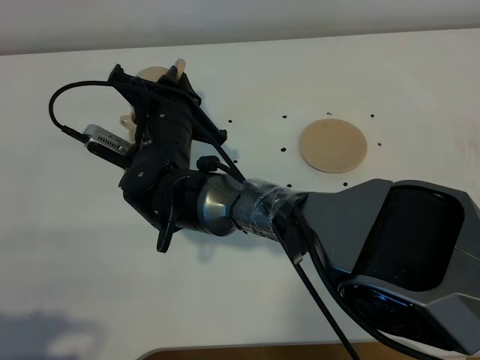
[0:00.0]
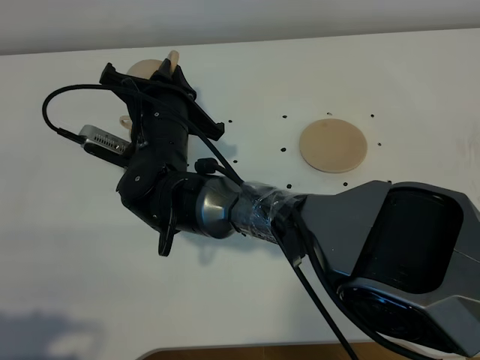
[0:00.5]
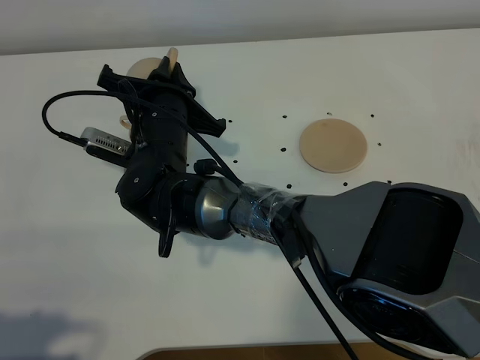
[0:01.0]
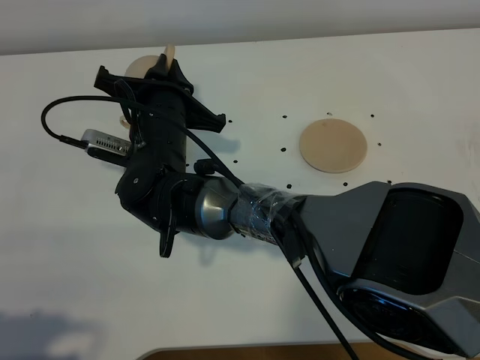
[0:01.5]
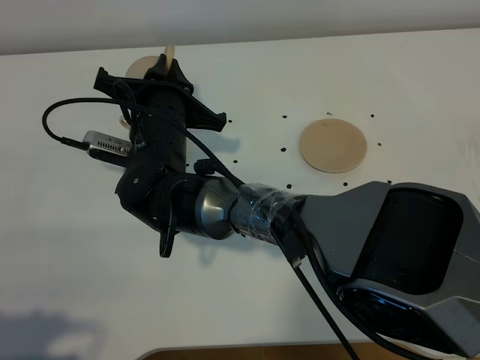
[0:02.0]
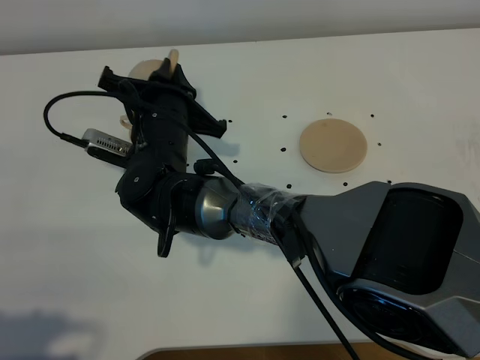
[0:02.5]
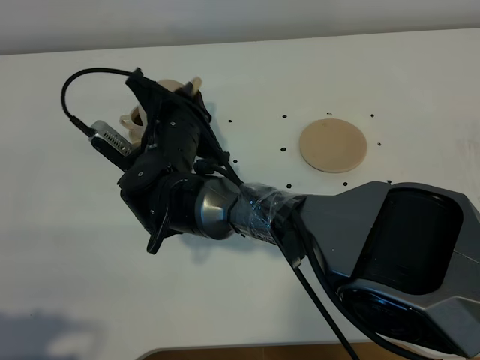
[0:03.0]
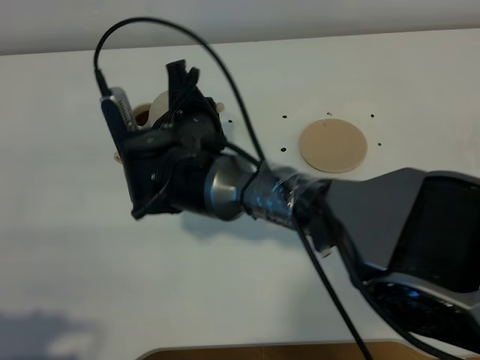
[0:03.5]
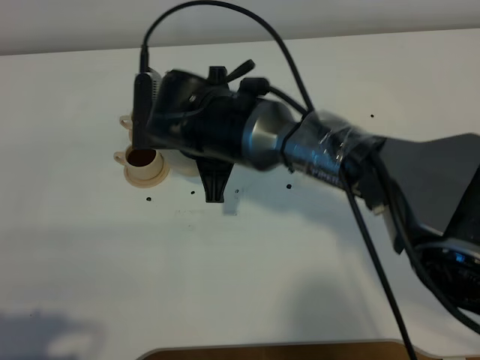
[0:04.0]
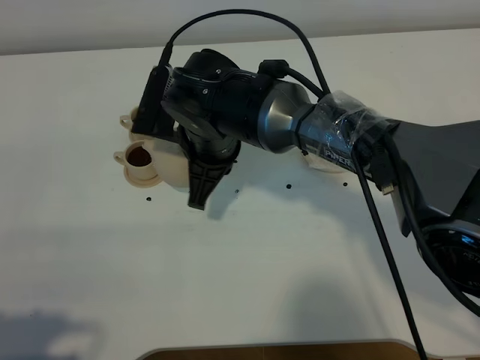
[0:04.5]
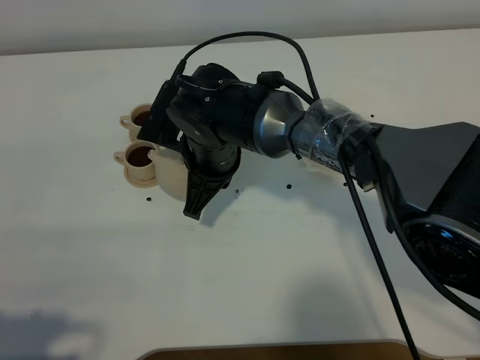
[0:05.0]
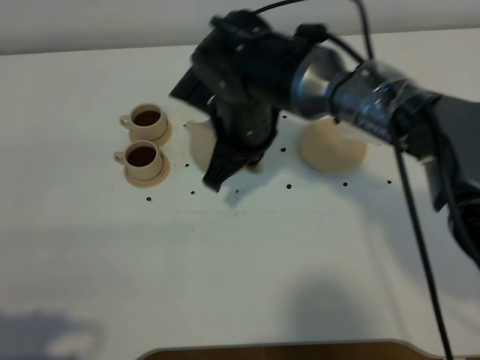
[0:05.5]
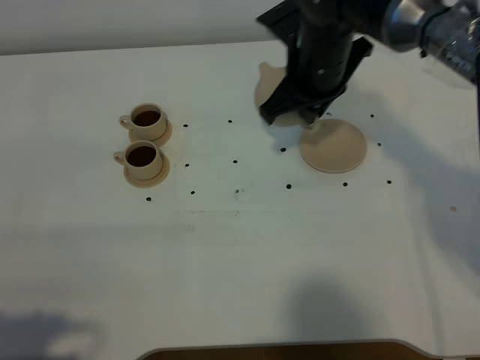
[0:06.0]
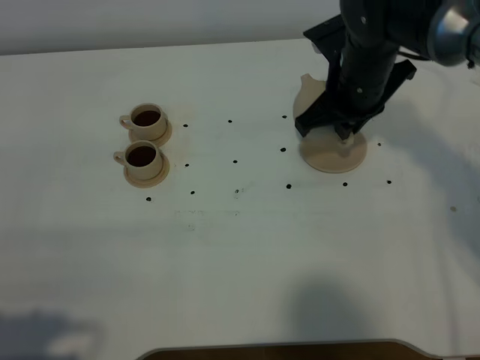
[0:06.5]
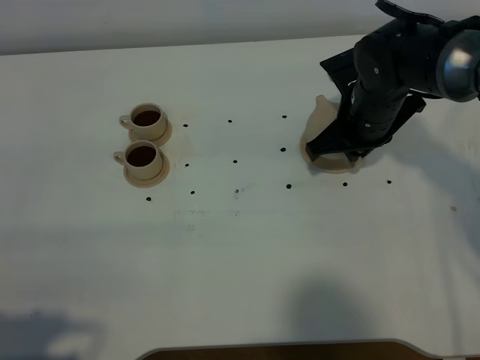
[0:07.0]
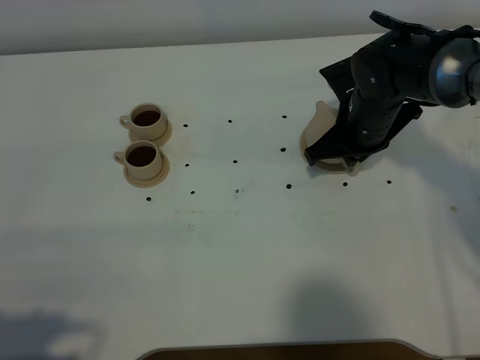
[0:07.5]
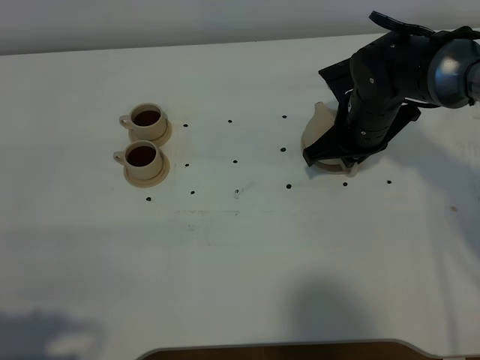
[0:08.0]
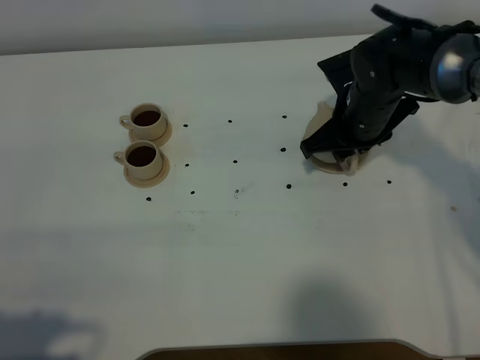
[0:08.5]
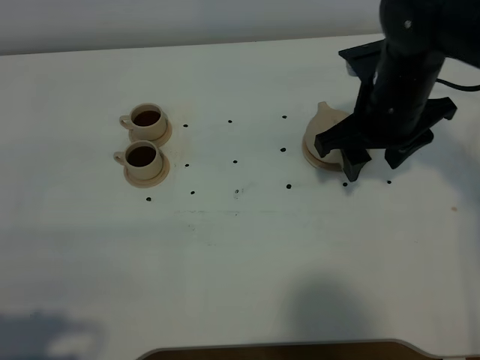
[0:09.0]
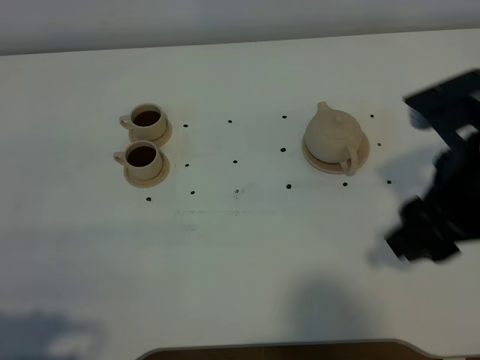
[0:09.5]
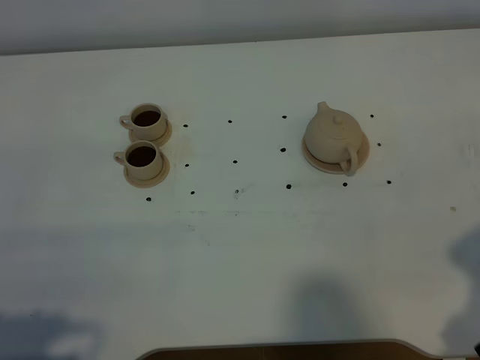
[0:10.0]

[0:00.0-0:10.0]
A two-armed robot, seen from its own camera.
Task of the whole recording: grasp the brown teapot and pour the tea into the two brown teacups one by one, put the brown teapot back in its original place.
Step, 0:00.0 to 0:03.0: Pour tea into the teacup with the right gripper.
0:00.0 to 0:02.0: There are only small adjustments of the grippers.
0:02.0 to 0:04.0: The right gripper heads to the right, covering approximately 5 cm.
0:04.0 to 0:06.0: The right gripper shifts roughly 15 cm to the right and forward.
0:06.0 to 0:08.0: The right gripper travels downward and to the right by some 10 cm.
0:08.0 to 0:10.0: The right gripper heads backward, covering approximately 30 cm, and opens.

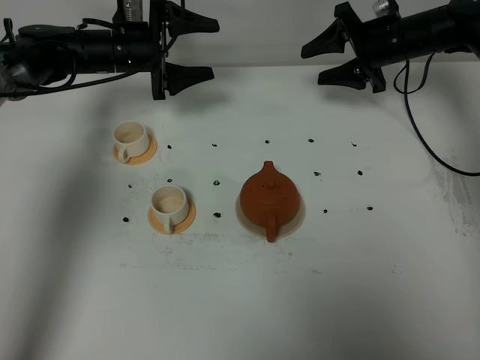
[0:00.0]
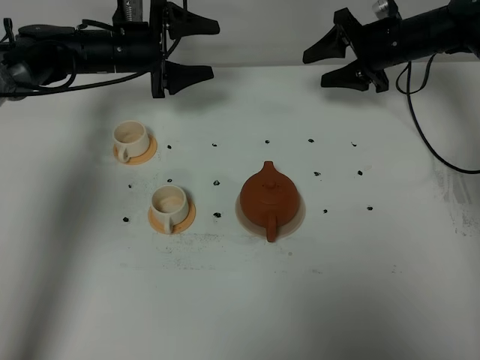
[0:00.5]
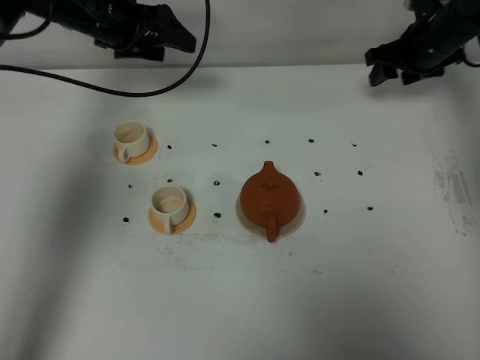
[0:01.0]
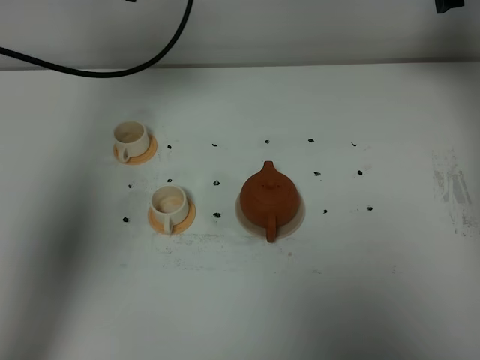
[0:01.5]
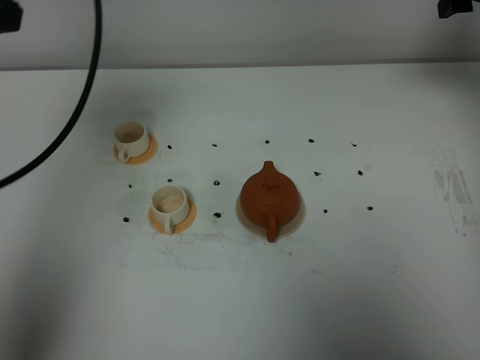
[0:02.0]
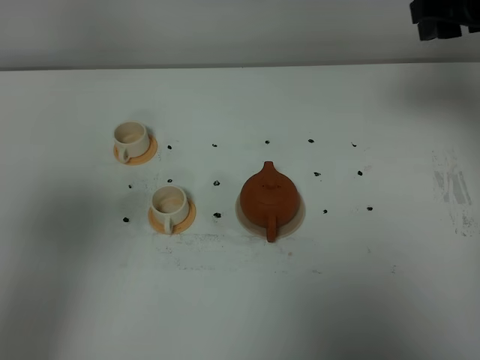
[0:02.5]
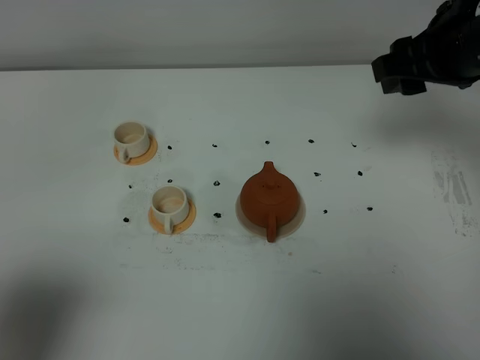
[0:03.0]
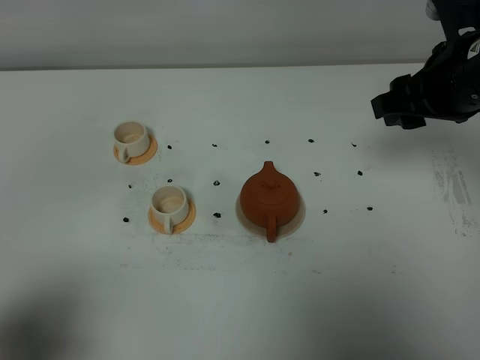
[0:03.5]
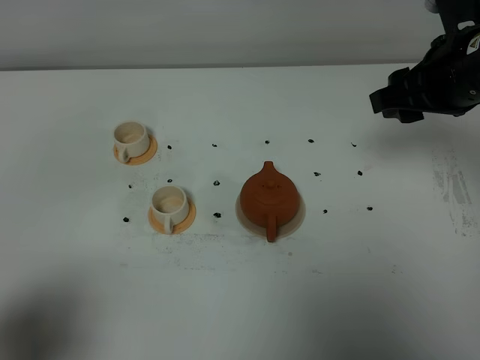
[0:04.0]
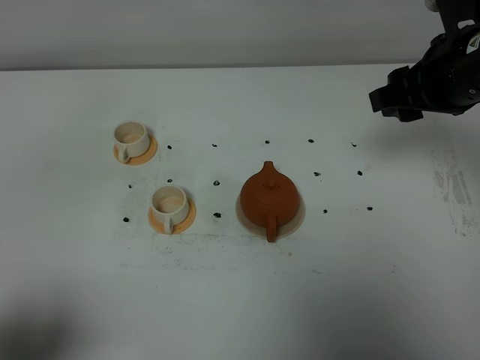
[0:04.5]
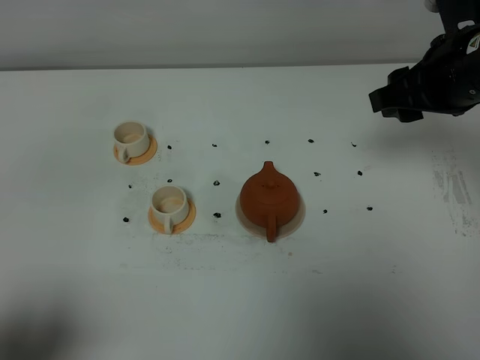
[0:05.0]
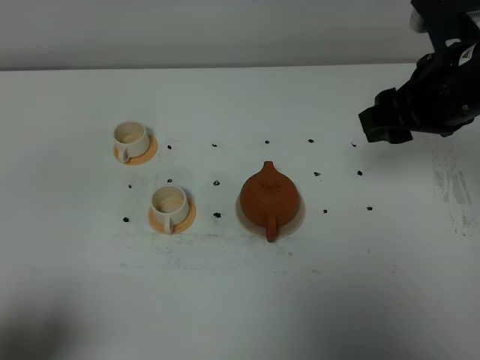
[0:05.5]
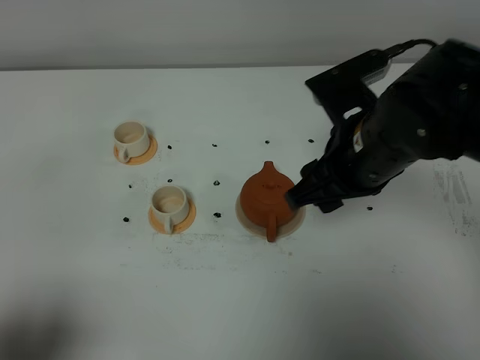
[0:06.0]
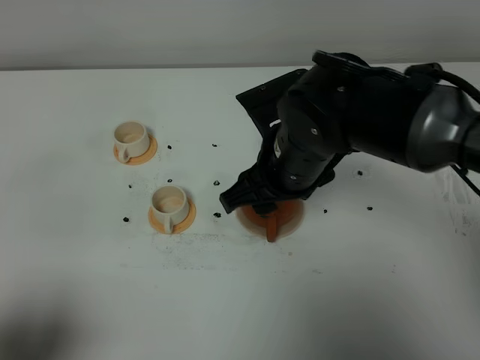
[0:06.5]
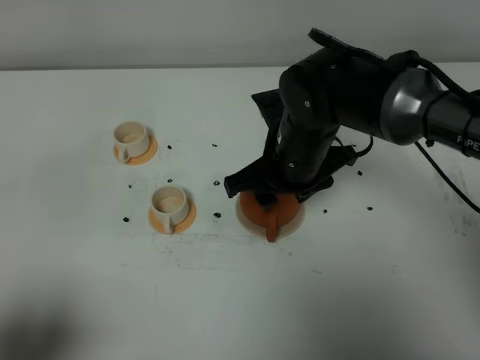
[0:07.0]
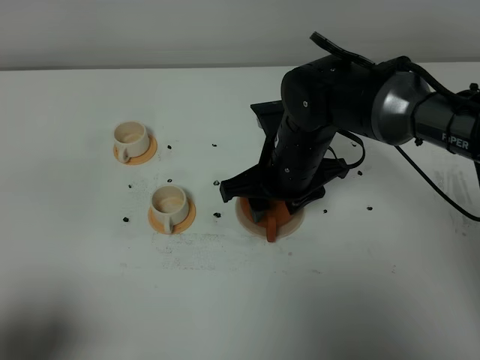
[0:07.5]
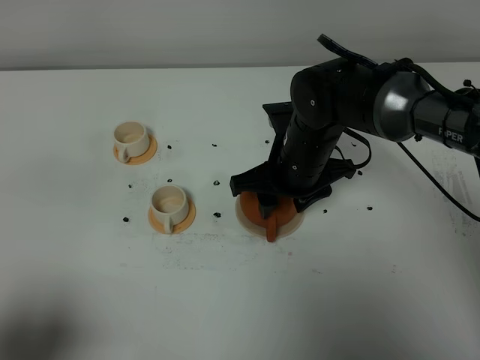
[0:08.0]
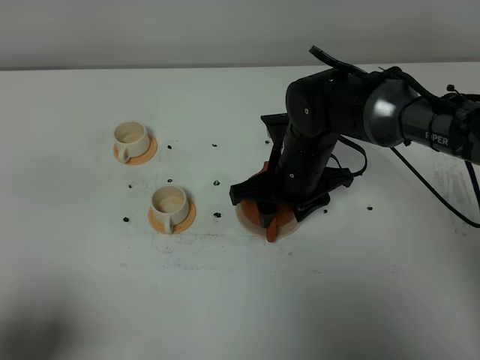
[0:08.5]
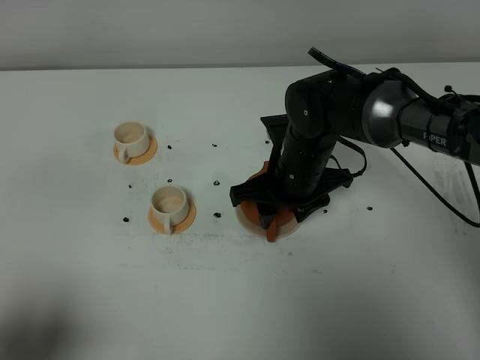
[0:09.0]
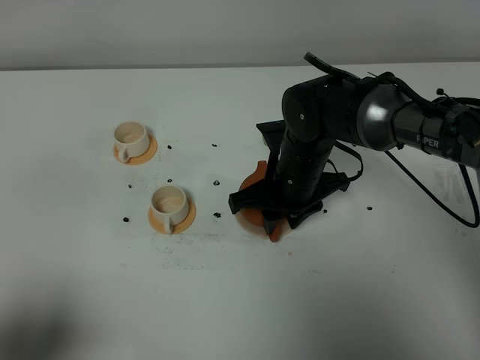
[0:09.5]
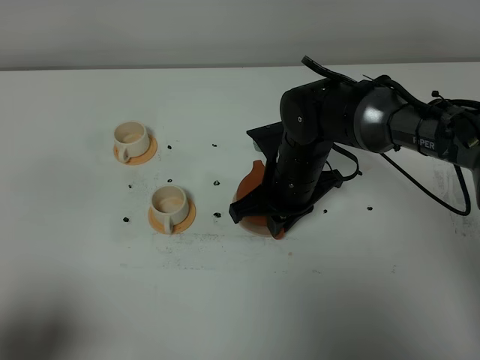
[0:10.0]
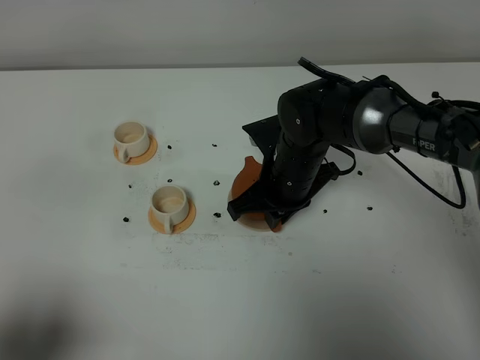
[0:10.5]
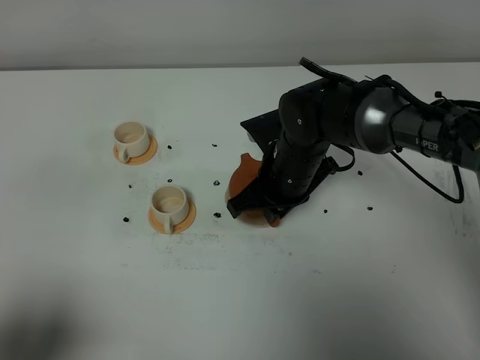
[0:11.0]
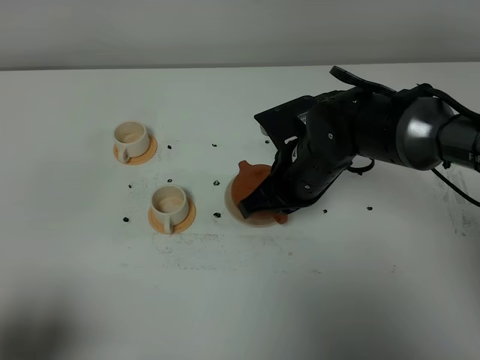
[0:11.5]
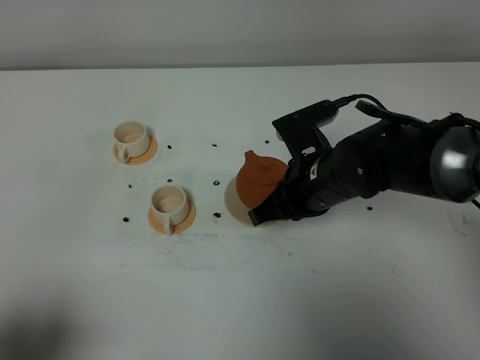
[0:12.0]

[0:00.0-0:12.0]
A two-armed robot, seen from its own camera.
Task of the whole recording: grasp the brown teapot and pour the tea into the two white teacups one by one, put the brown teapot back in its original place.
Step, 0:00.0 to 0:11.5: Pick up the teapot with the right gripper.
0:00.0 to 0:02.0: The left gripper travels upward and backward by some 35 cm, while the right gripper travels upward, backward and to the right by approximately 20 cm.
0:02.0 to 0:04.0: The right gripper heads backward and to the left, covering roughly 15 cm, while the left gripper goes roughly 30 cm backward and downward.
0:04.0 to 0:06.0: The right gripper goes about 10 cm to the left and backward.
0:06.0 to 0:08.0: The right gripper goes approximately 15 cm downward, forward and to the left.
0:08.0 to 0:10.0: The right gripper closes up.
0:10.0 to 0:12.0: The right gripper changes place by approximately 5 cm.

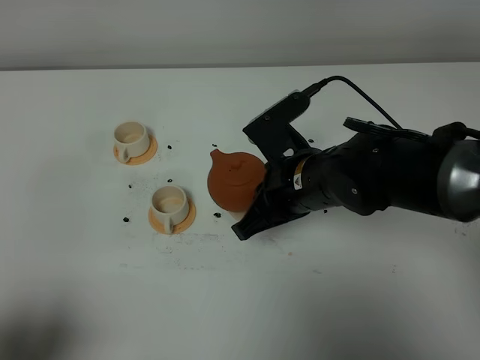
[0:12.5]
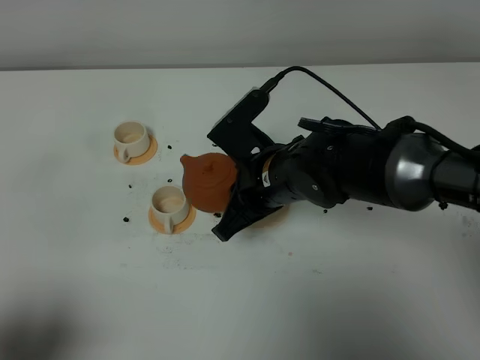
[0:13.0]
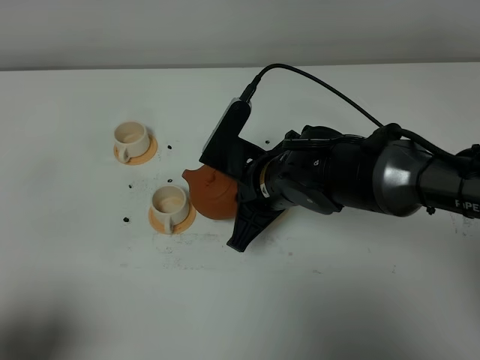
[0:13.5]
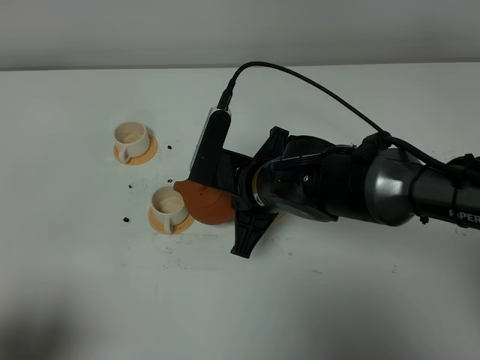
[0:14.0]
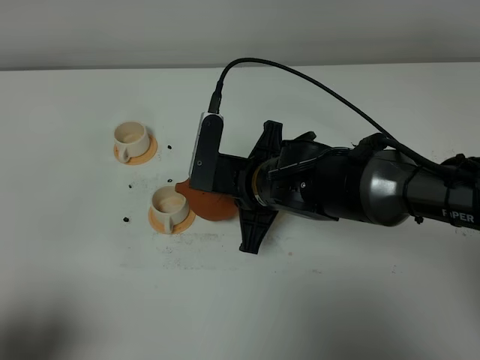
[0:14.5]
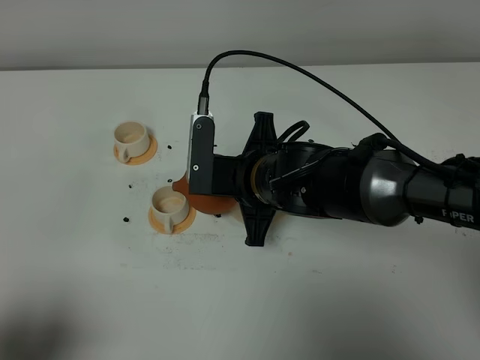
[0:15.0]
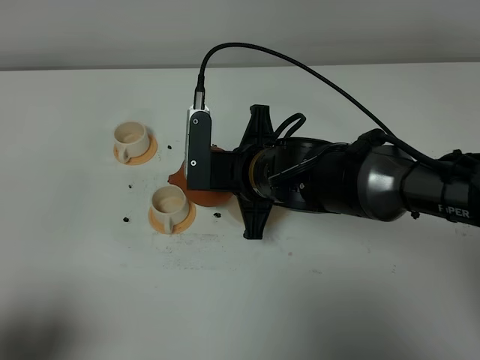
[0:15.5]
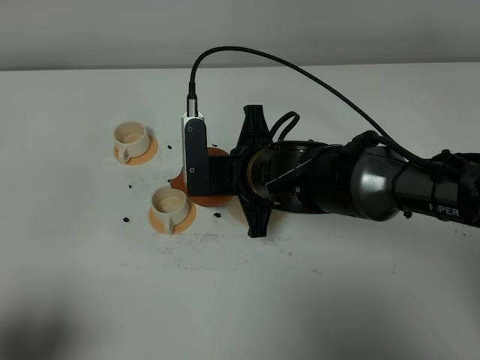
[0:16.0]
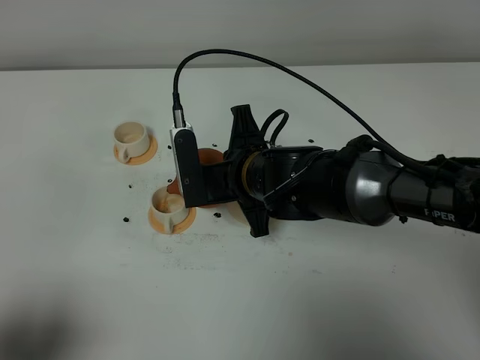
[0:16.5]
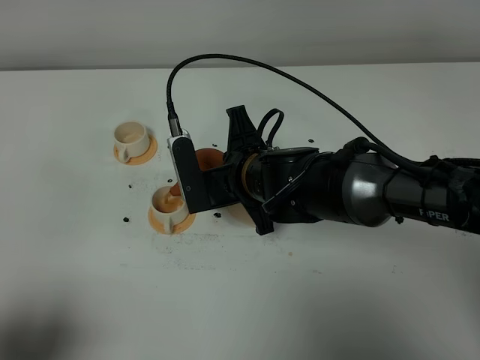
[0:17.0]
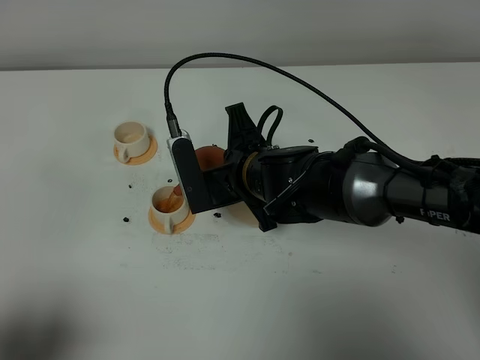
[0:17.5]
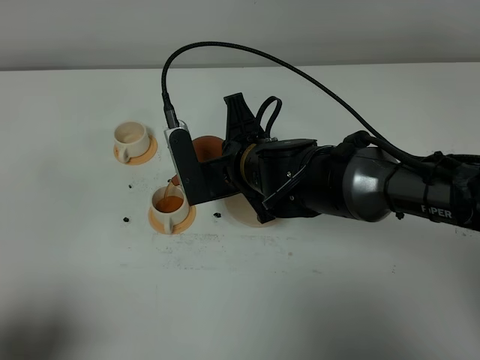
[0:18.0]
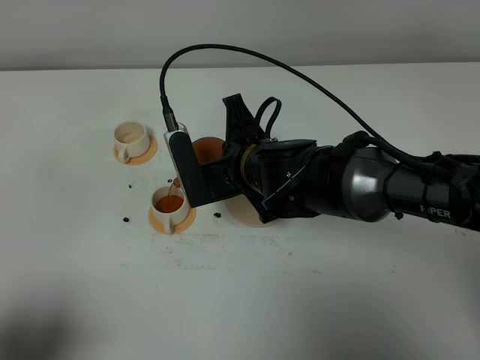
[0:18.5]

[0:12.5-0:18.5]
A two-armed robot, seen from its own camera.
Task of the whole recording: grasp the brown teapot and pour the tea into the two white teacups one by one, put the brown teapot back in its original place.
0:16.5 to 0:18.5: There are only small adjustments of the grippers.
